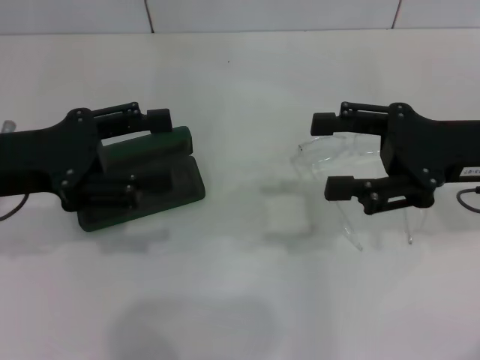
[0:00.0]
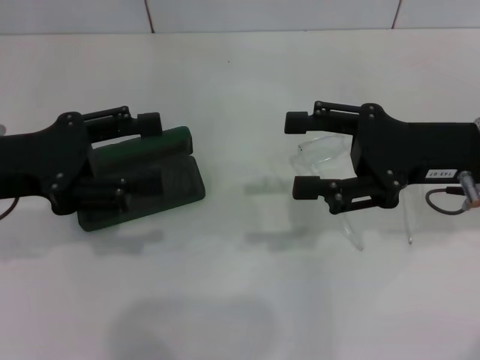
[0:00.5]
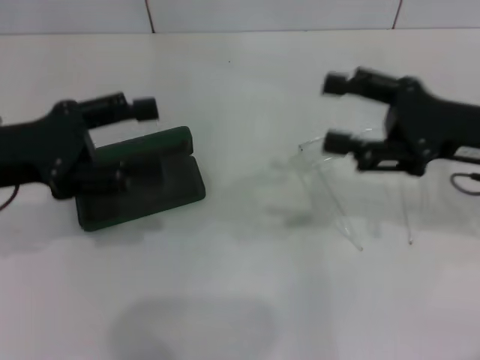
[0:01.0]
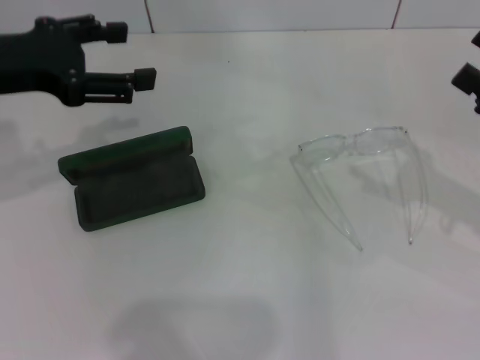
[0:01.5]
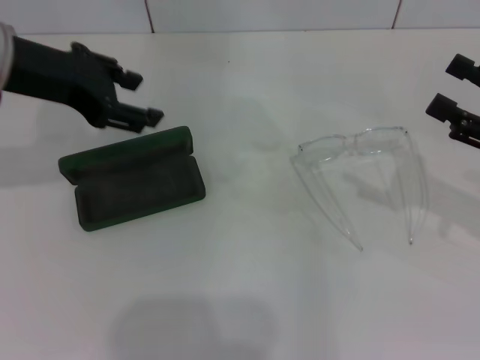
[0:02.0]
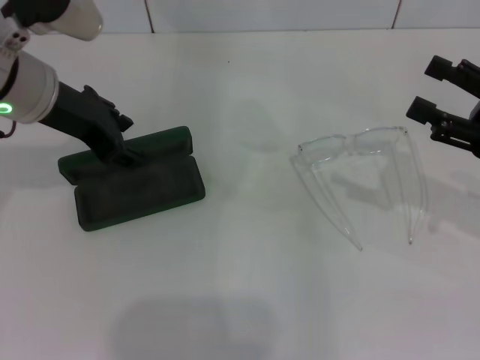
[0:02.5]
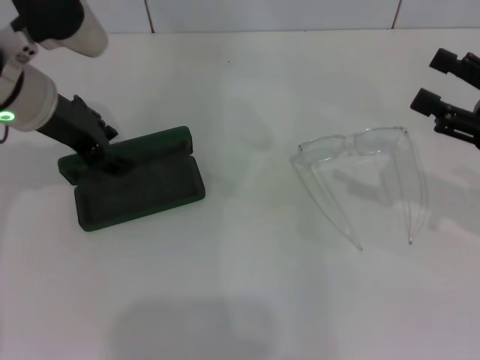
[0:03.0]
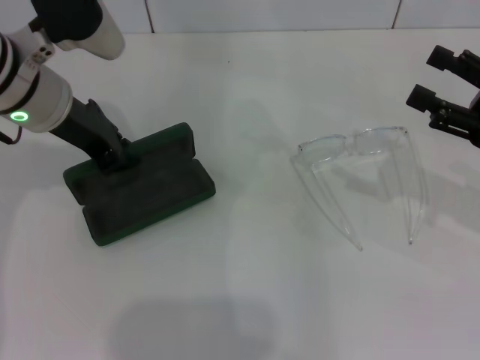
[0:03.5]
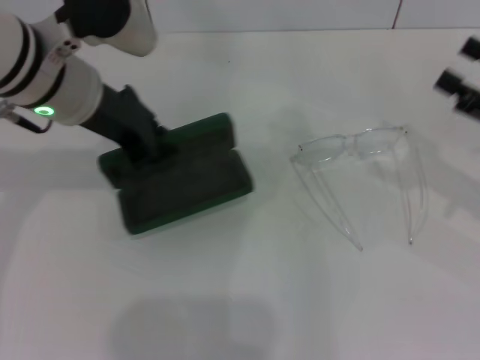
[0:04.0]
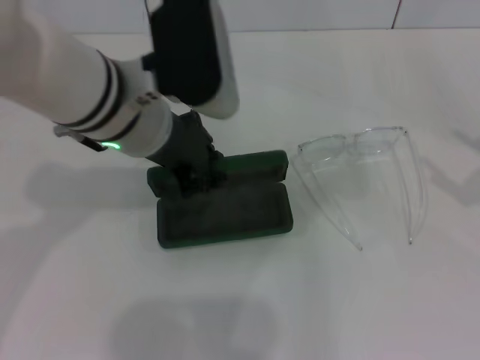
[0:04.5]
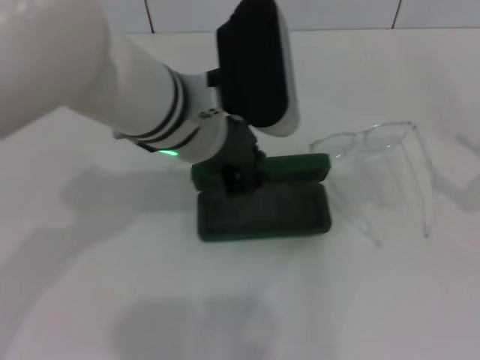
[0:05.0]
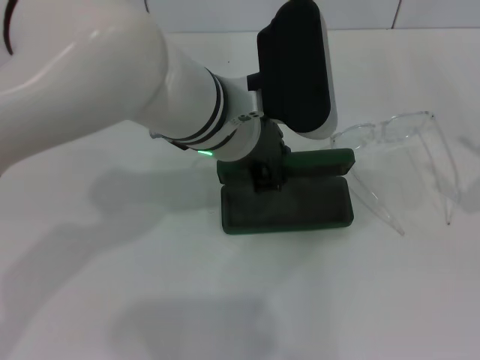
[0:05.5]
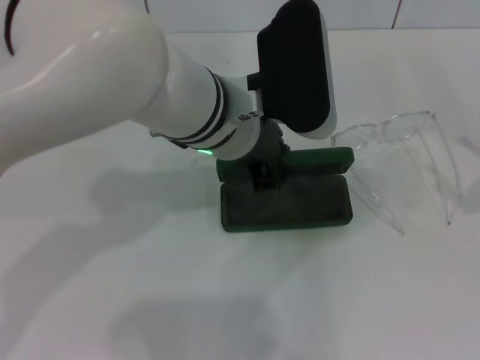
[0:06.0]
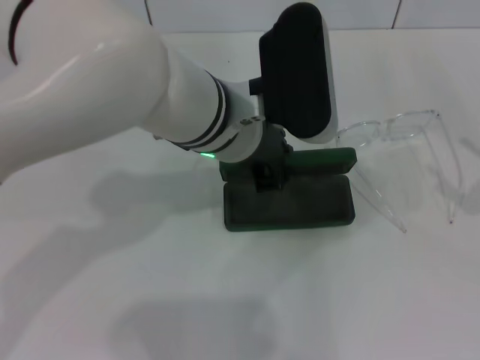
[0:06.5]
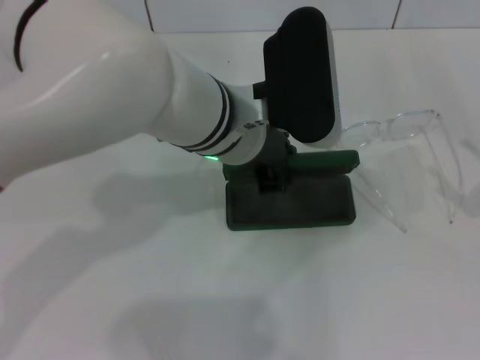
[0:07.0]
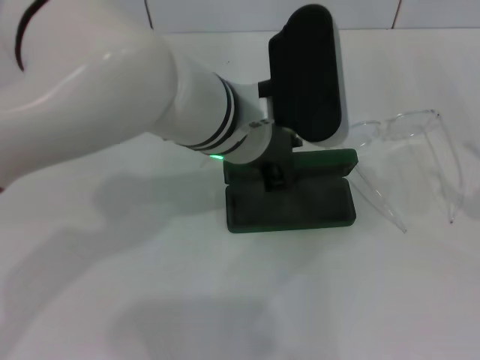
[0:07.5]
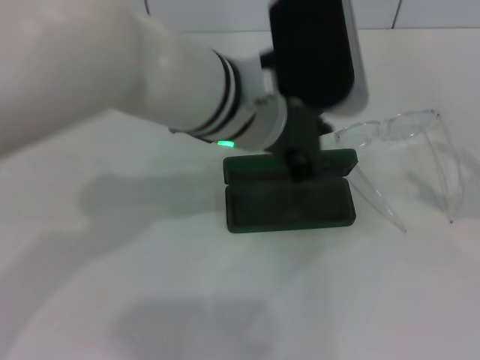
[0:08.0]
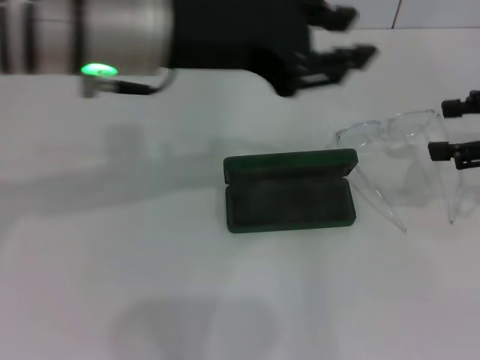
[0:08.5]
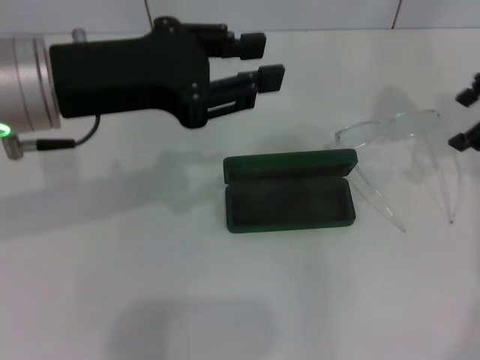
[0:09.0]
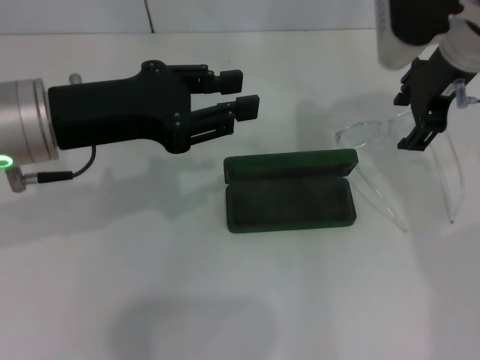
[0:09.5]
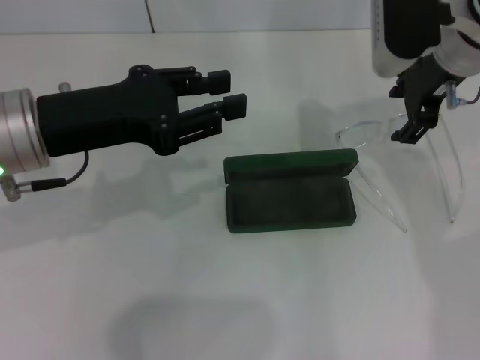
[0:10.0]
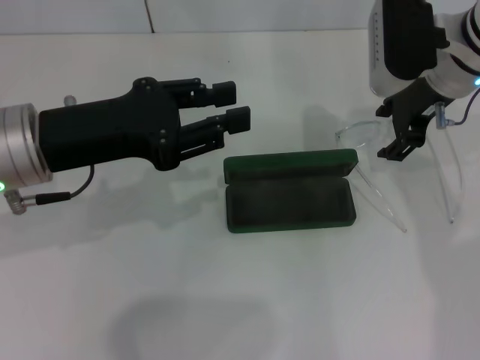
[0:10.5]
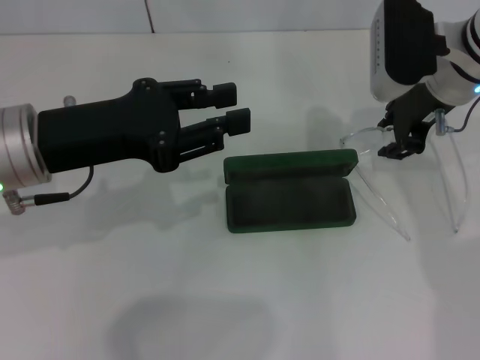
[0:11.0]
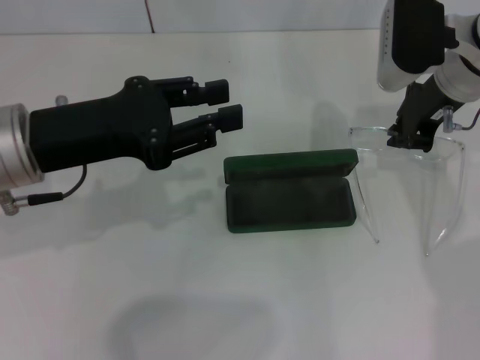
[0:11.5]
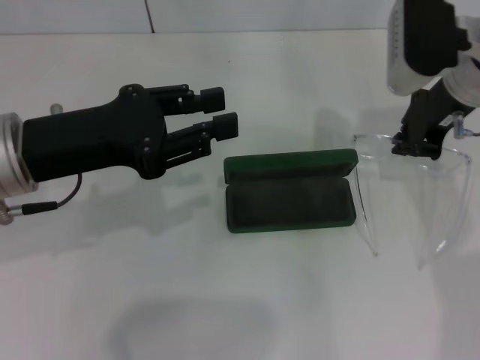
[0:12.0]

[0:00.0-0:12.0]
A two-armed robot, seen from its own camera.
Step, 0:00.0 to 0:03.0: Grab the glasses case with your left hand.
Step, 0:03.5 to 0:07.0: Place the glasses case in the center of the table with your left hand.
Step, 0:07.5 to 0:11.0: Grab the eyeglass frame with your right hand.
0:00.0 to 0:02.0: The right gripper moves to the right, about 10 cm. The left gripper is displaced upward and forward by roughly 10 cm.
0:02.0 to 0:04.0: The left gripper travels to the right by approximately 5 cm, and closes.
0:04.0 to 0:06.0: The right gripper shifts some 5 cm backward; the left gripper travels to the right by approximately 15 cm.
0:06.0 to 0:08.0: The grippers stay close to where they were, moving slightly.
0:08.0 to 0:10.0: The right gripper is displaced to the left, forward and upward by approximately 30 cm. The left gripper moves to the left, roughly 20 cm.
0:10.0 to 0:12.0: The right gripper closes.

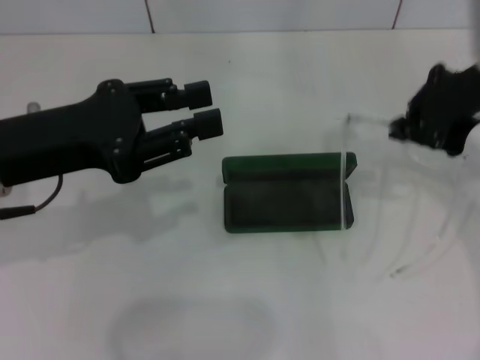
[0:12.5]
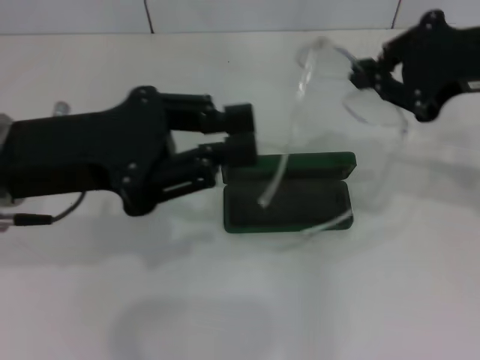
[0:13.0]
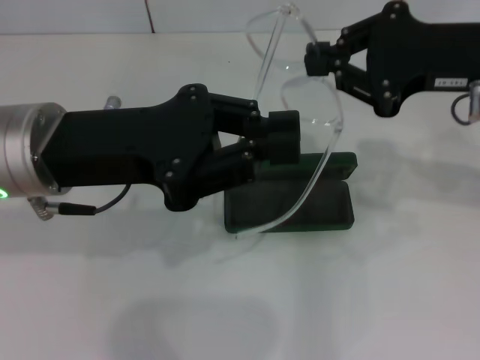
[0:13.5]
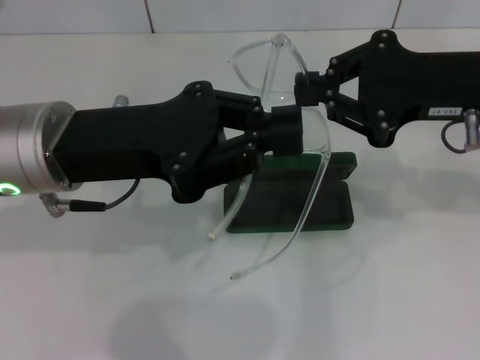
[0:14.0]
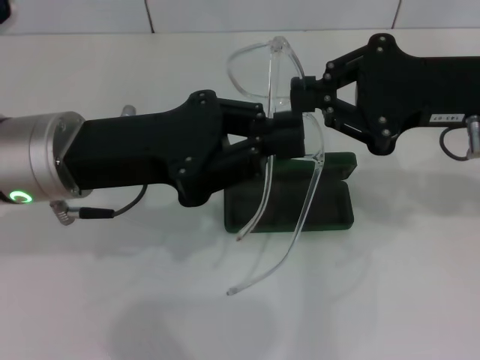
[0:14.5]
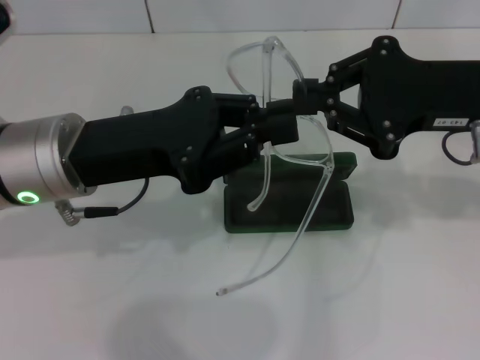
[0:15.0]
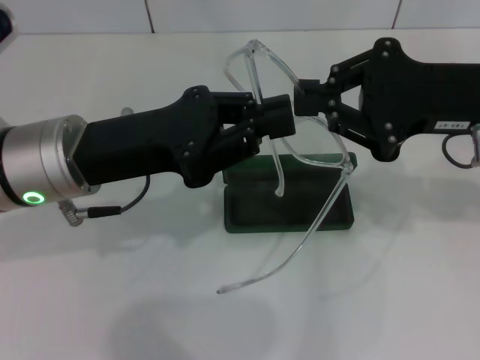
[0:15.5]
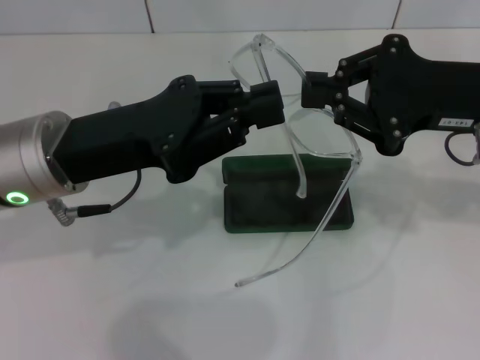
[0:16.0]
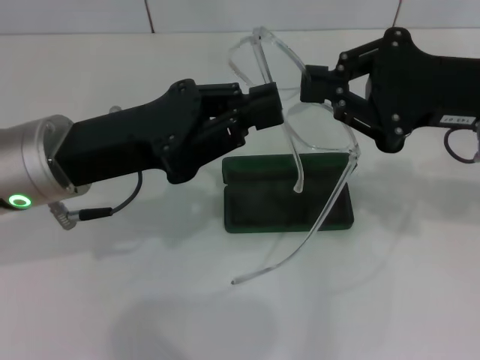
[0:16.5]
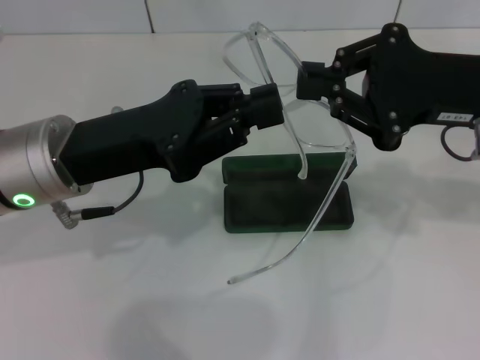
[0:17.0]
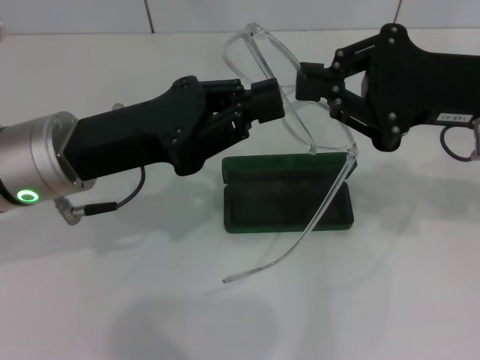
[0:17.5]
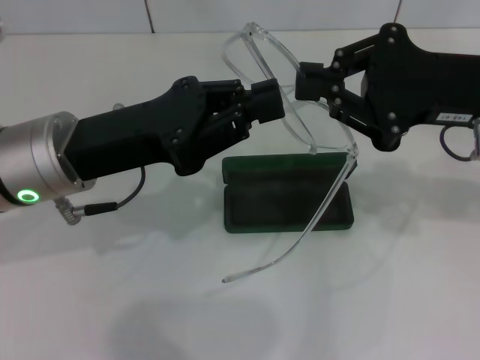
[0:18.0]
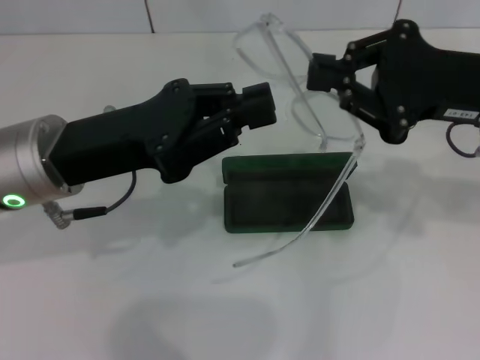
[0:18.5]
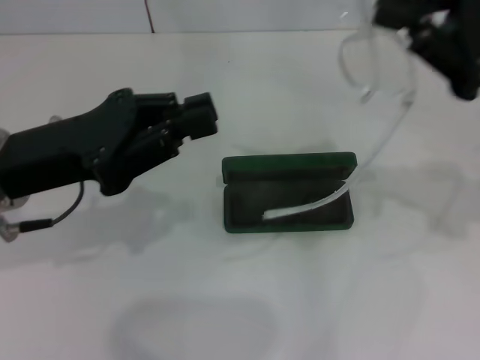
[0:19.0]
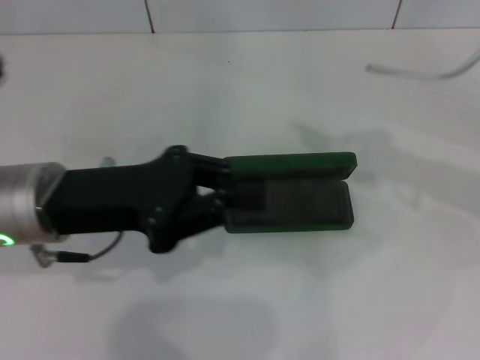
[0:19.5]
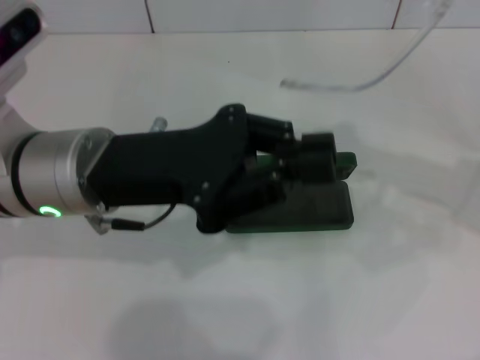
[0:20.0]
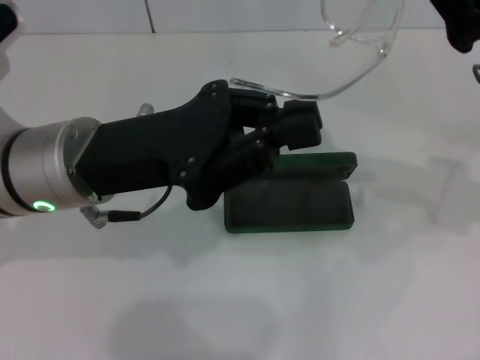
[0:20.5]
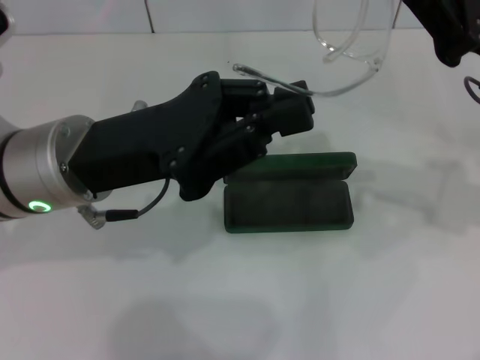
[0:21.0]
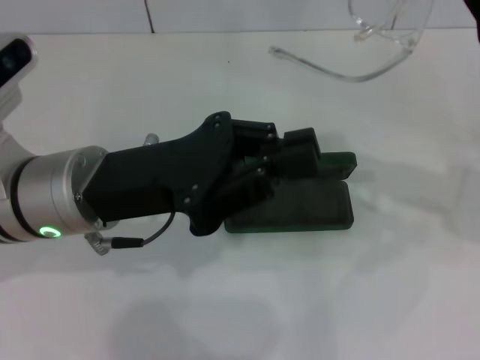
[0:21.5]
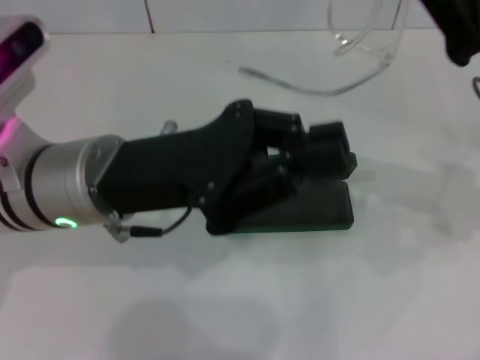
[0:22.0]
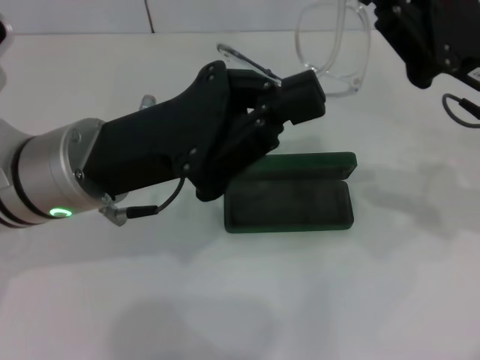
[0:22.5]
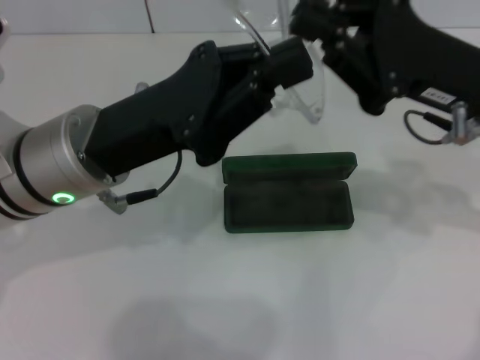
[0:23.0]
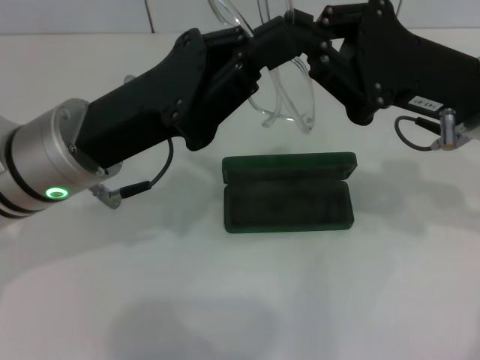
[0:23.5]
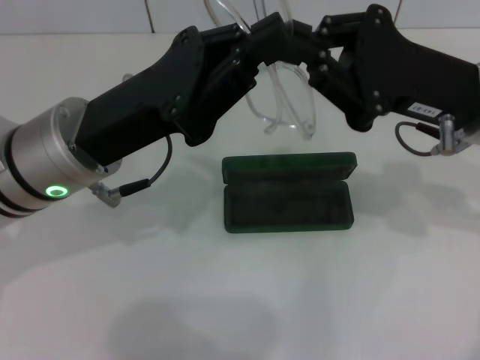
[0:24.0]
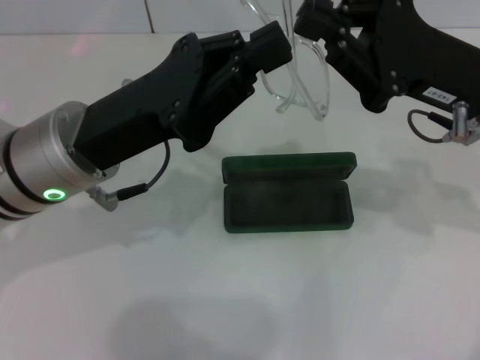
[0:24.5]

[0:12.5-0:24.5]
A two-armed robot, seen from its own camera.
0:12.5 to 0:14.5: The left gripper moves to the right, some 5 cm, and closes.
0:14.5 to 0:16.5: The grippers make only small movements.
0:16.5 to 0:18.5: Neither gripper changes place.
0:18.5 to 0:20.5: The right gripper goes to the right and returns, about 10 cm each way.
0:20.5 to 0:22.5: There are only small adjustments of the grippers.

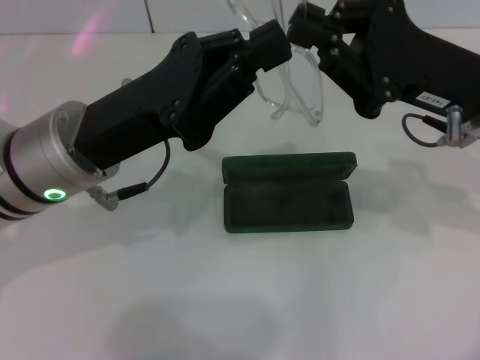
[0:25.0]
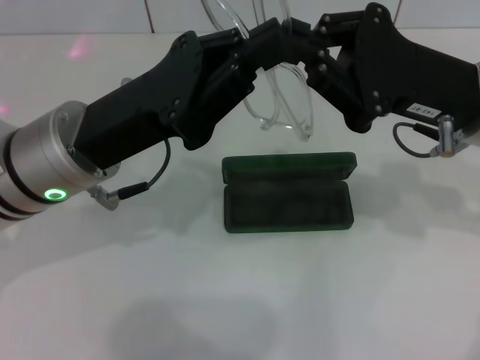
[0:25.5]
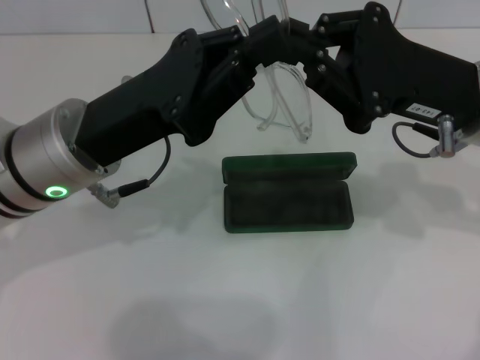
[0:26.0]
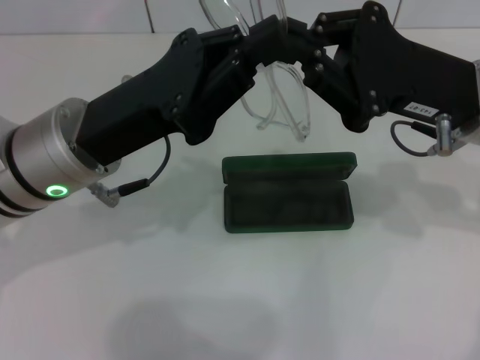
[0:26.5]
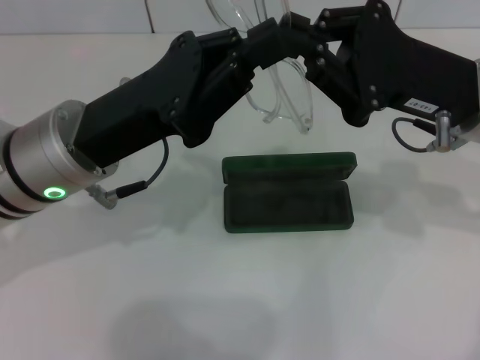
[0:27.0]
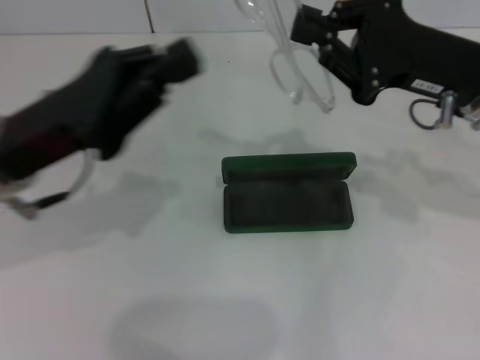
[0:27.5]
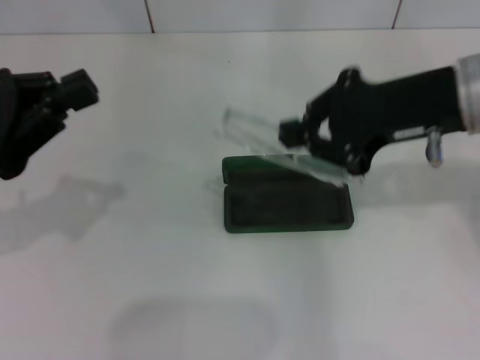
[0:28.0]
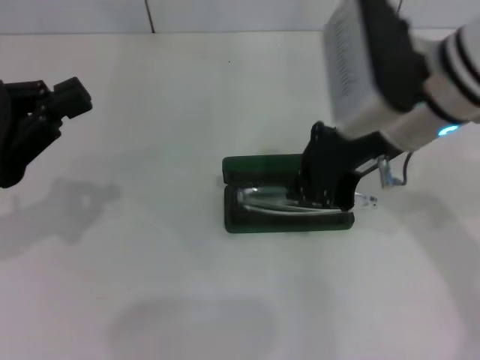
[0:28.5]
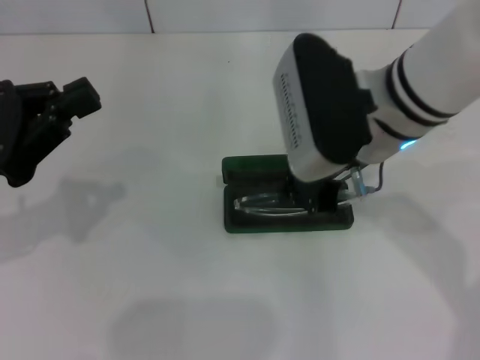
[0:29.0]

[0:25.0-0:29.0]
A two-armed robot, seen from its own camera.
Step, 0:25.0 to 0:27.0: Fold the frame with your left hand.
0:25.0 to 0:27.0: Both grippers stay about where they are.
0:27.0 to 0:29.0: Both grippers move to the left, approximately 10 cm.
